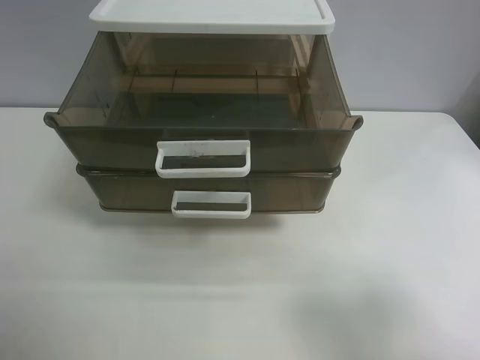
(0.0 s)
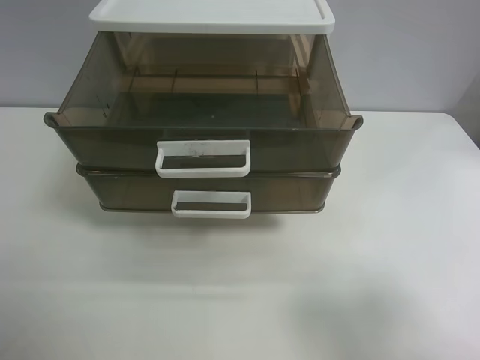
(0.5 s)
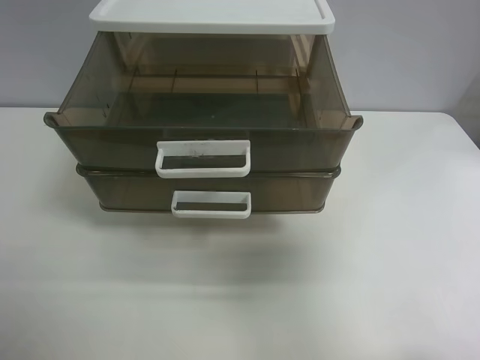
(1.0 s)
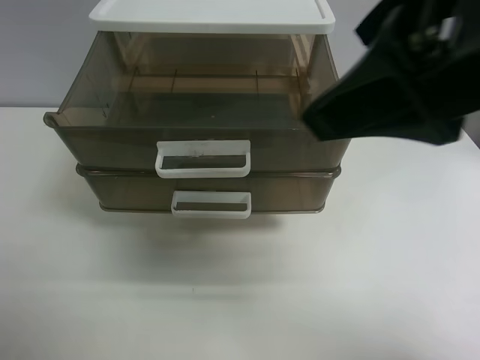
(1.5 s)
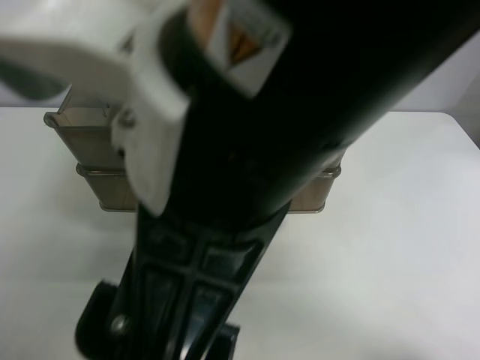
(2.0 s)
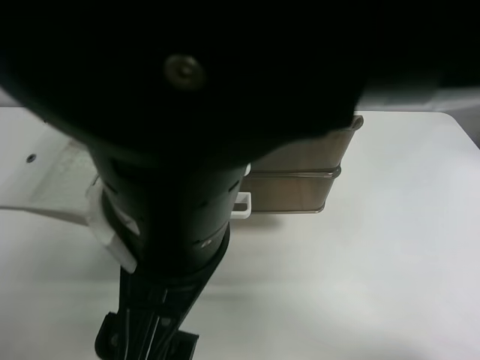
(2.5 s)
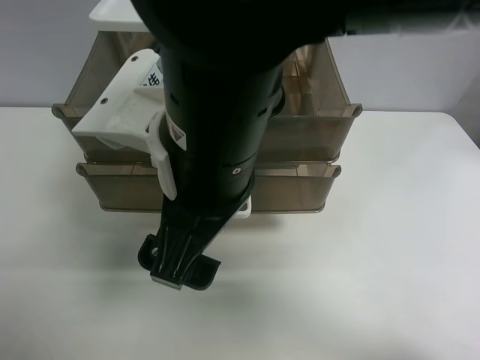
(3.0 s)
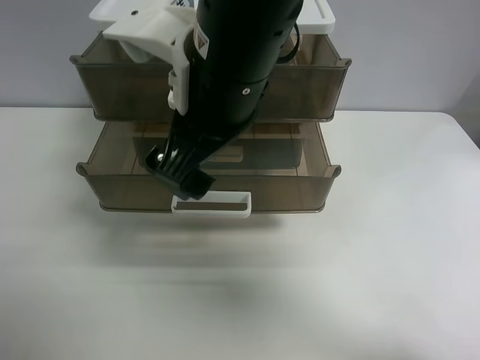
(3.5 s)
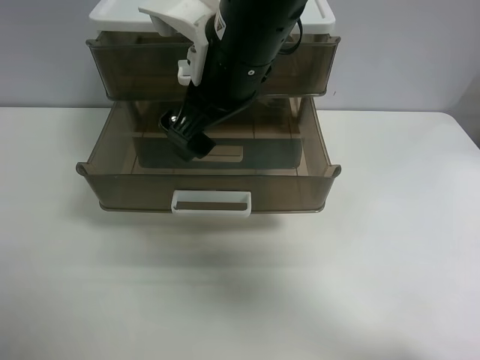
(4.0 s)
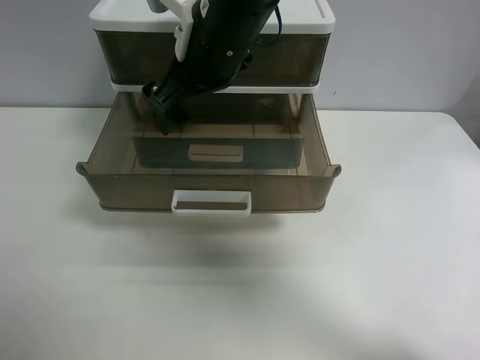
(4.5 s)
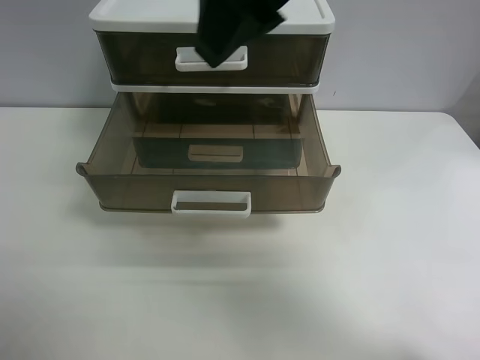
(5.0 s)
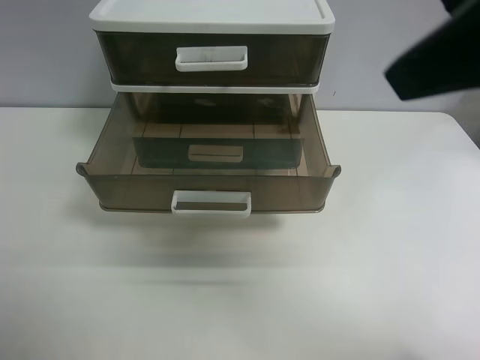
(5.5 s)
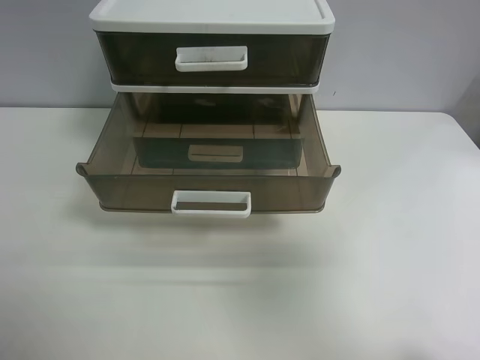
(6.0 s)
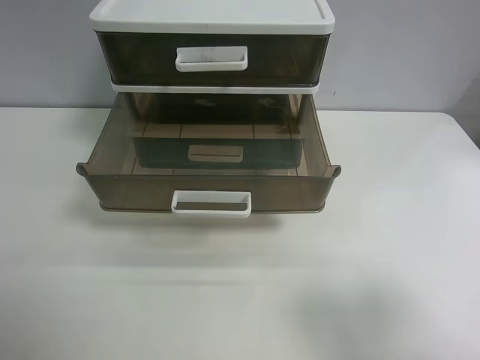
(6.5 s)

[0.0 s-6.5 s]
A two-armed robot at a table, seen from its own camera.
Task of the whole recording: close the top drawer.
Step, 0.0 to 2.5 s: Use the right gripper to touch the topmost layer of the storage cabinet.
Step, 3.0 to 4.5 s: Push the top drawer closed.
0.0 to 2.0 s: The right gripper travels to the left by some 30 cm.
2.0 to 4.5 s: The right gripper goes roughly 20 cm forward.
4.5 to 6.5 s: The right gripper is displaced to the right and backward by approximately 40 cm.

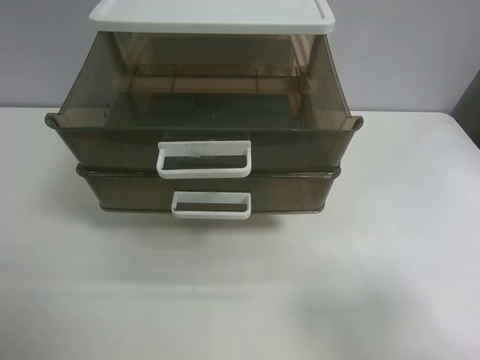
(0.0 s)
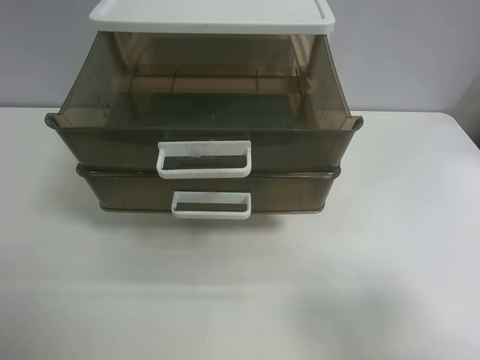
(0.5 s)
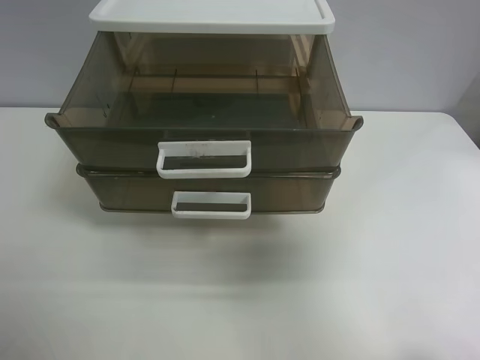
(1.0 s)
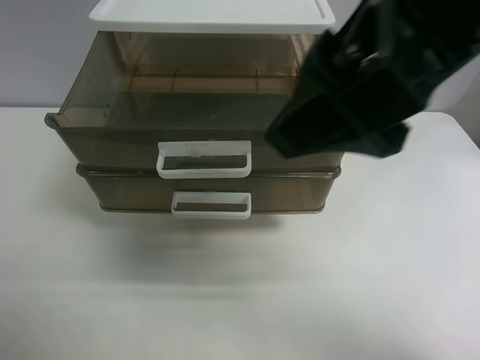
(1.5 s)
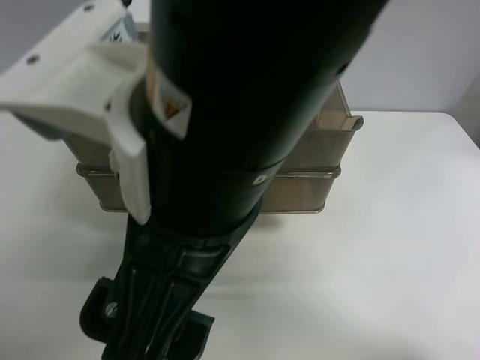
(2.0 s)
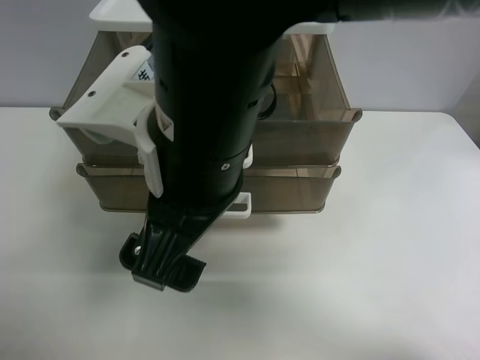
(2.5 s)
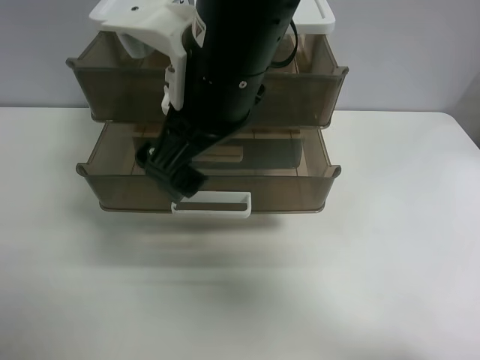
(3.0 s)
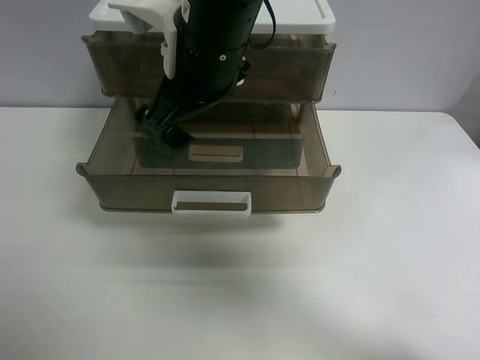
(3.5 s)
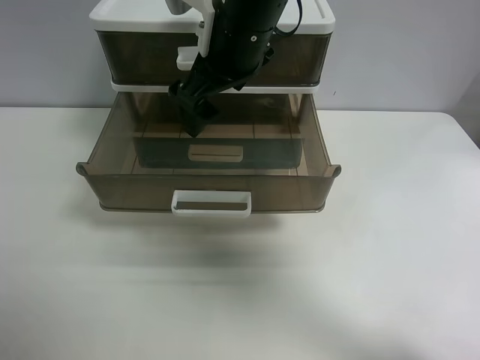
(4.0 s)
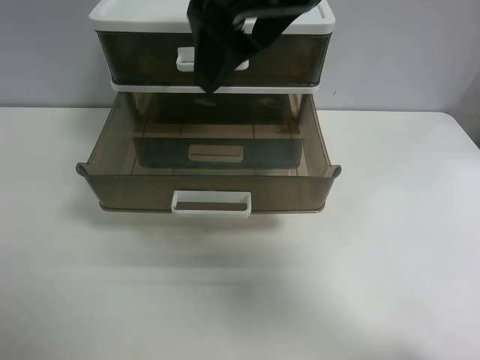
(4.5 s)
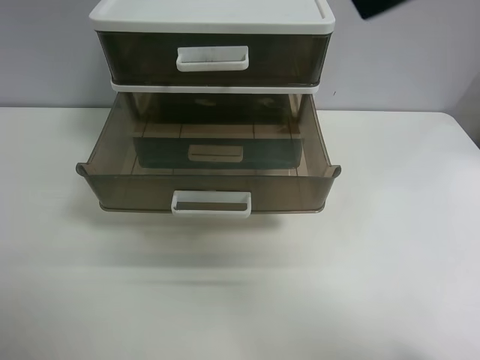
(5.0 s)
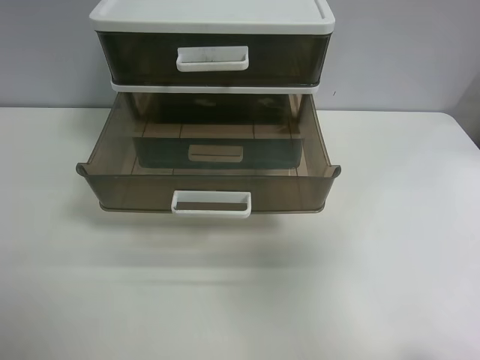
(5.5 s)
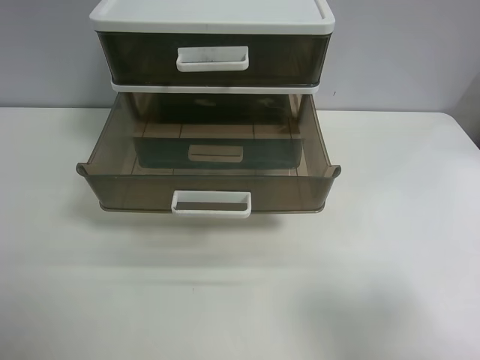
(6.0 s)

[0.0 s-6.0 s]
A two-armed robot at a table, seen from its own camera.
Task of the whole recording: close the top drawer.
Step, 0.0 to 2.0 s: Use the right gripper to touch the topmost layer of the storage cabinet.
Step, 2.5 to 4.0 s: Push the top drawer closed.
0.0 to 2.0 s: The right gripper is displaced to the left by about 30 cm.
2.0 to 4.0 s: The right gripper is displaced forward by approximately 20 cm.
4.0 to 6.0 s: The right gripper shifts roughly 40 cm backward and to the right.
